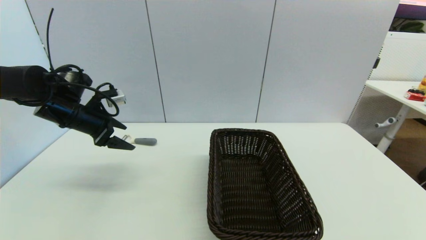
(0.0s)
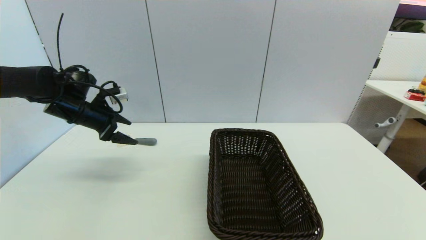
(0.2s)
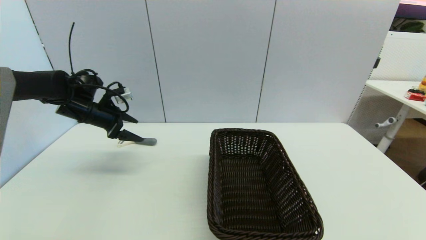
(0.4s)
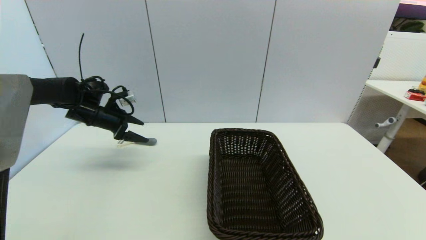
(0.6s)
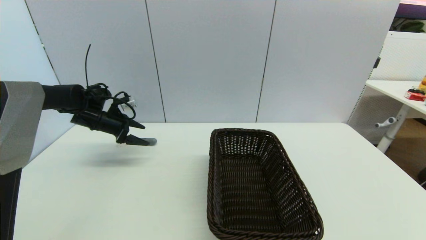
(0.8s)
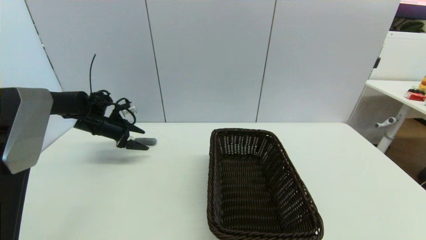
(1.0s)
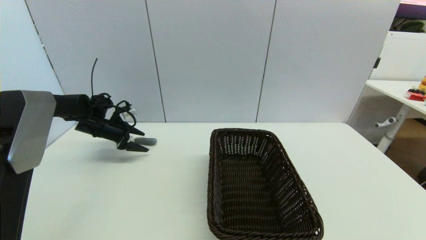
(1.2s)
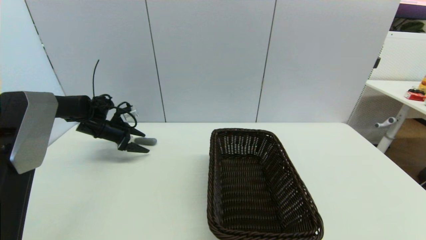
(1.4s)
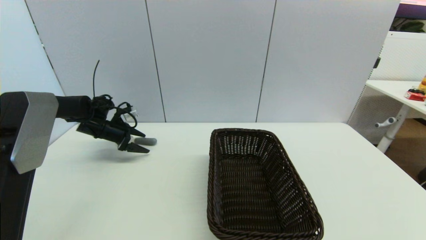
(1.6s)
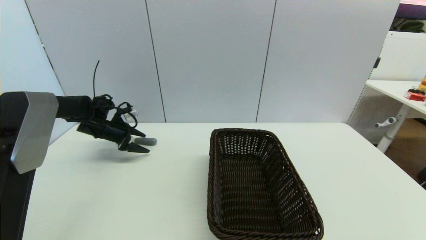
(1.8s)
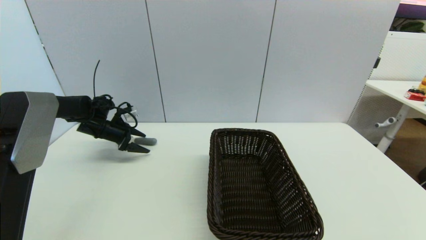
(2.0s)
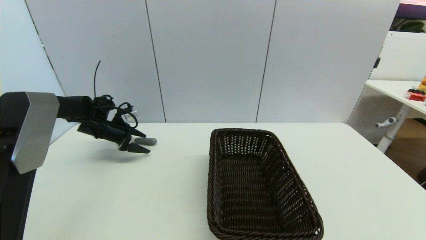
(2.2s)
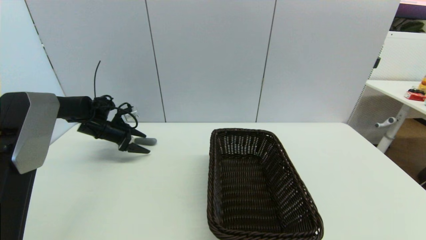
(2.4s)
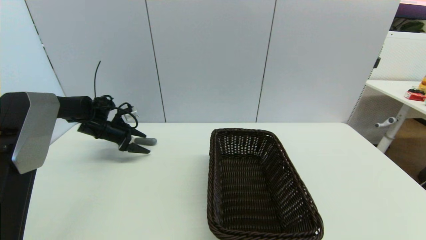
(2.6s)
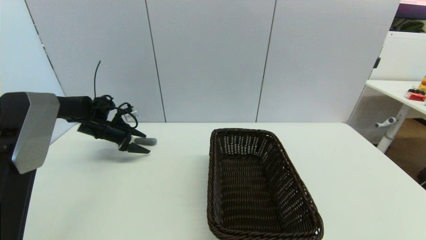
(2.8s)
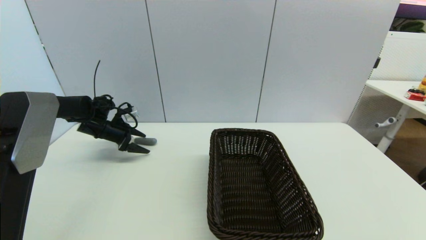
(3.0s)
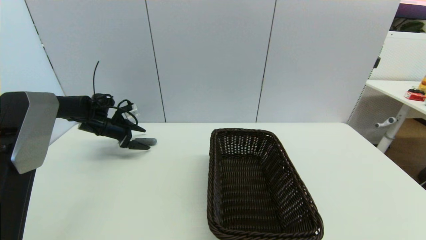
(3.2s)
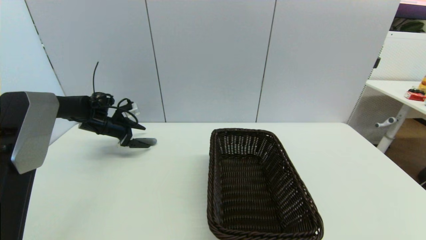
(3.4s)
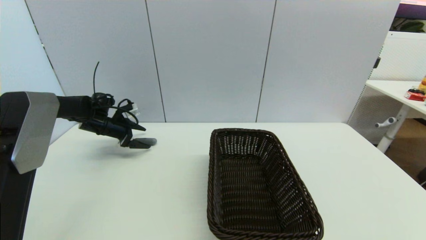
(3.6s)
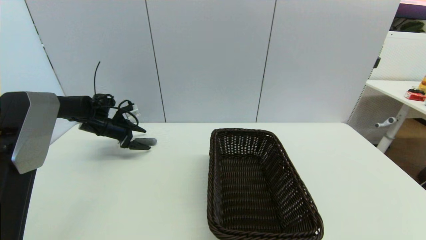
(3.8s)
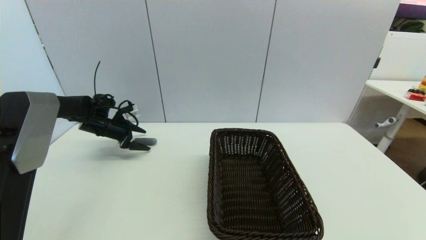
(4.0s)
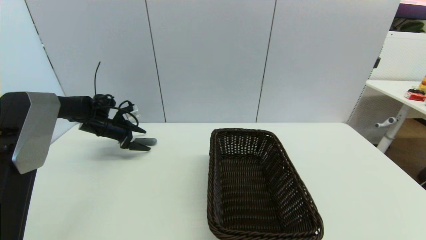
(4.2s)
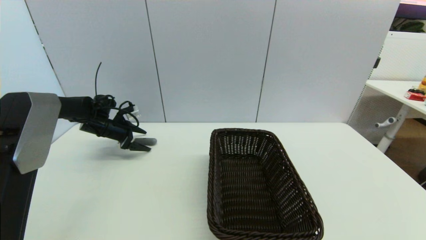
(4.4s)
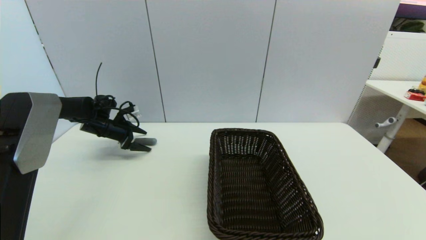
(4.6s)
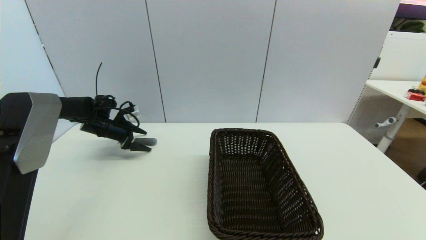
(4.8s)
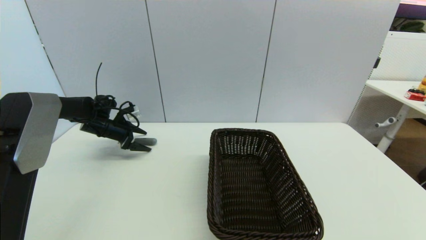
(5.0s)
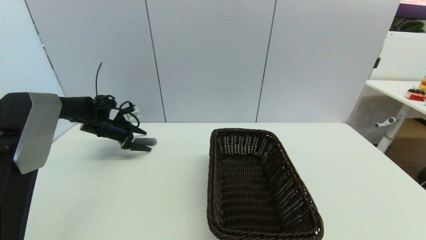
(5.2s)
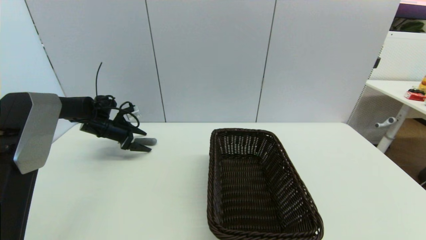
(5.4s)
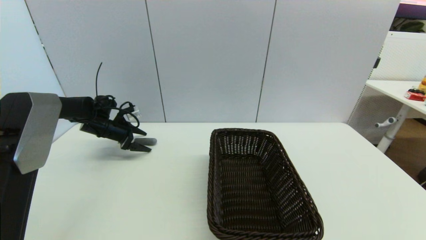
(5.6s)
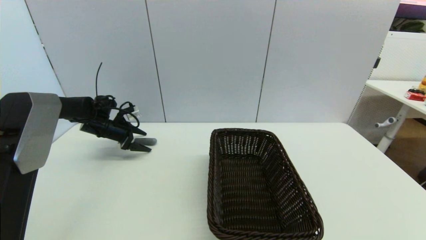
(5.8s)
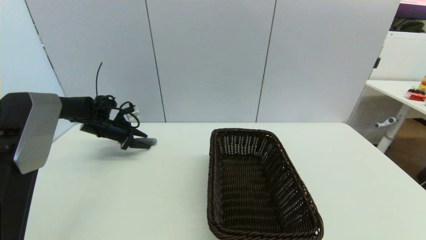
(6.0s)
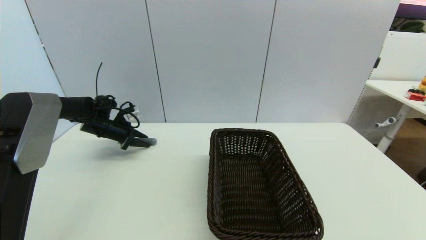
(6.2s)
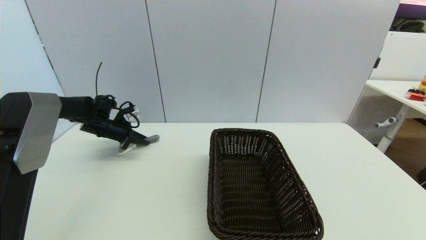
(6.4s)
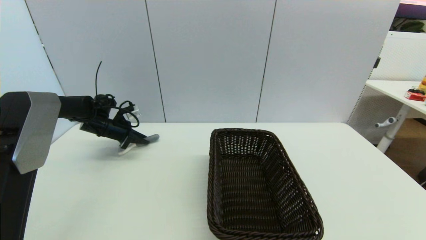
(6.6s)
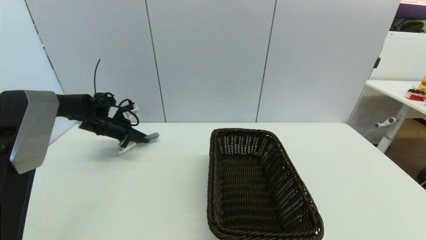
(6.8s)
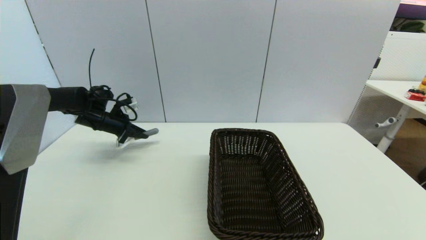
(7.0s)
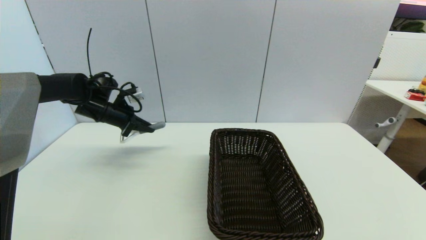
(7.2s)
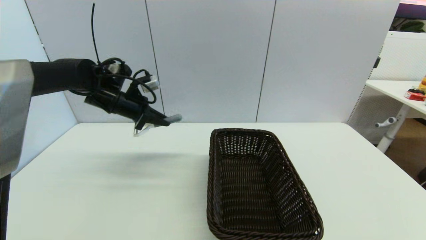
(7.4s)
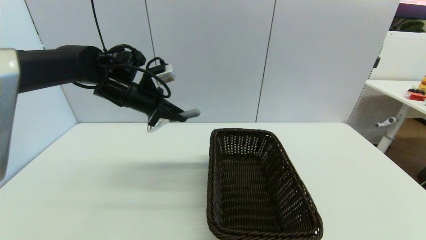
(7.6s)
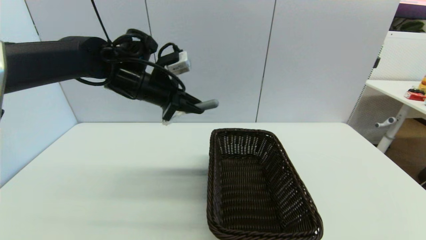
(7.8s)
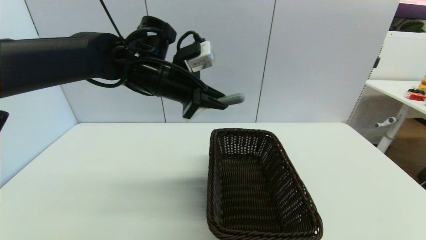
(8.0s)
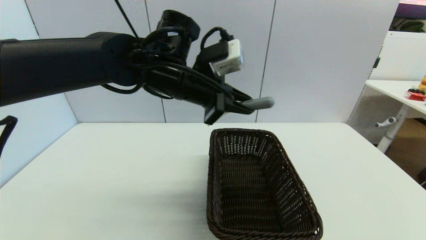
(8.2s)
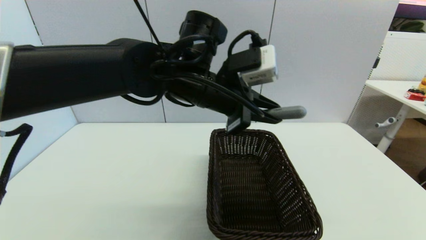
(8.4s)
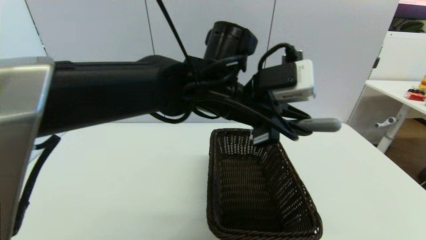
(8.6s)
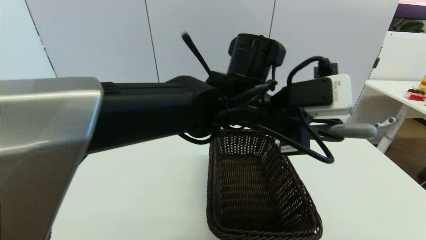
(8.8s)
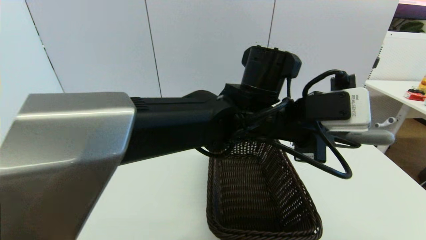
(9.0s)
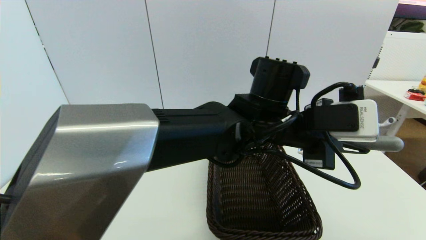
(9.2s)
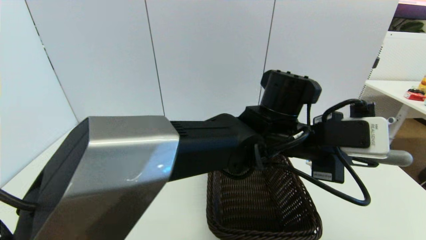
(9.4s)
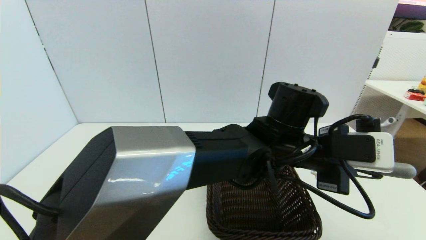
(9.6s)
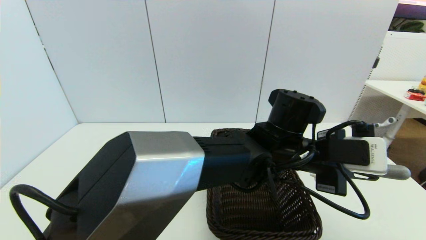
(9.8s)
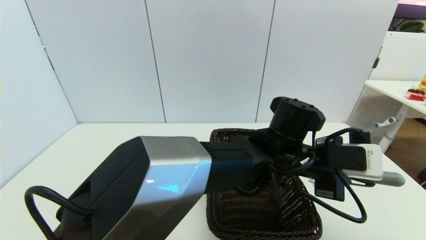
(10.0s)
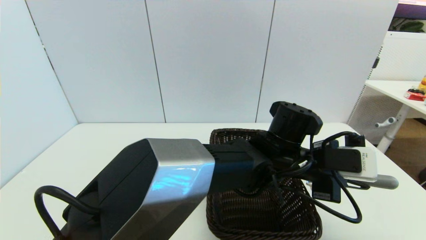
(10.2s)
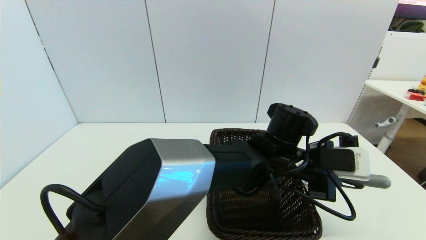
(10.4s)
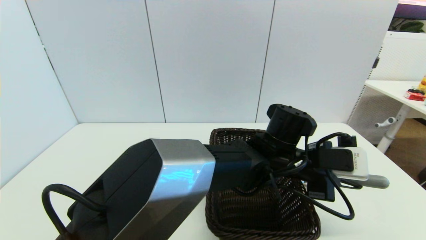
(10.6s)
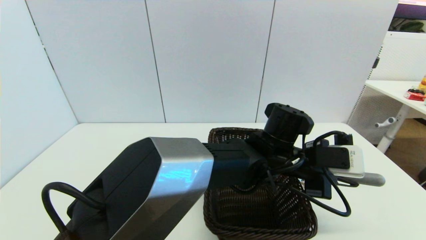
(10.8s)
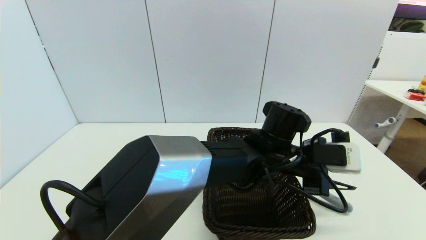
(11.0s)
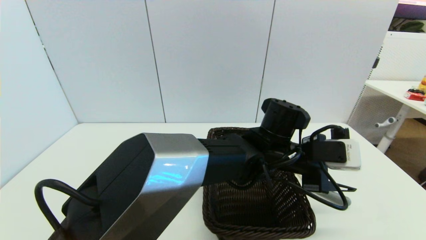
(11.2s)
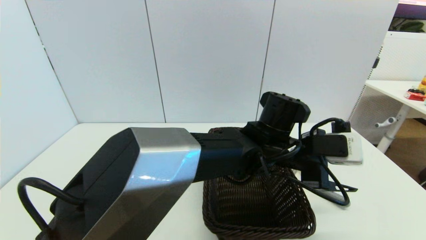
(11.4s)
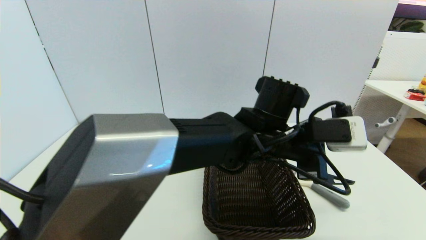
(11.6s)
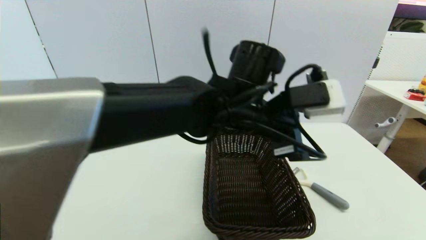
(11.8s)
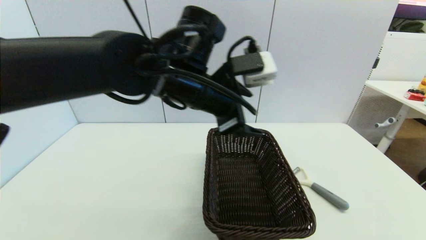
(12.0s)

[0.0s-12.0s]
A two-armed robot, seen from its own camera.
Step, 0.0s to 7.0s: Grasp the peeler with left gripper.
Step, 7.2s to 11.6s: Place the peeler on the table with left gripper.
0.0s to 1.6s: The left gripper goes approximately 15 cm downward and forward.
1.6s to 3.0s: Both grippers stay about where they are.
3.0s to 4.4s: The grippers make only small movements.
4.4s to 6.0s: The left gripper closes up.
6.0s to 7.6s: The left gripper travels upward, to the right and backward by approximately 25 cm, and closes.
7.6s to 9.0s: The left gripper goes some 30 cm to the right and backward.
9.0s to 10.4s: The left gripper goes some 10 cm downward and to the right.
10.4s to 12.0s: The left gripper goes approximately 25 cm to the left and upward, and opens its fingers.

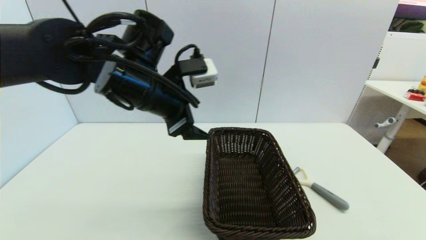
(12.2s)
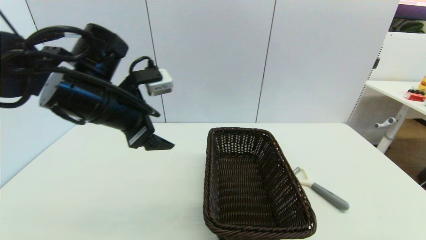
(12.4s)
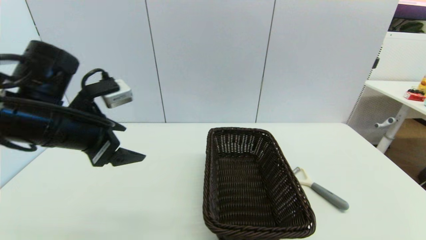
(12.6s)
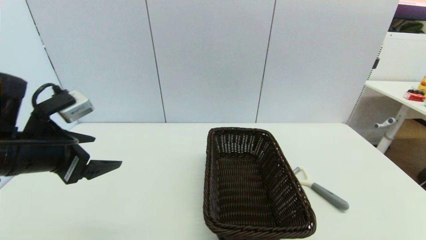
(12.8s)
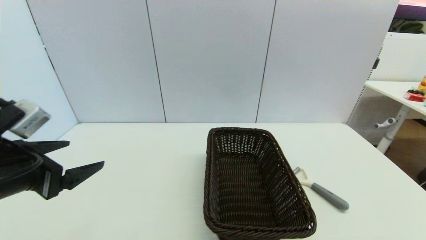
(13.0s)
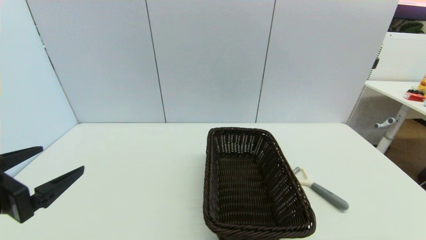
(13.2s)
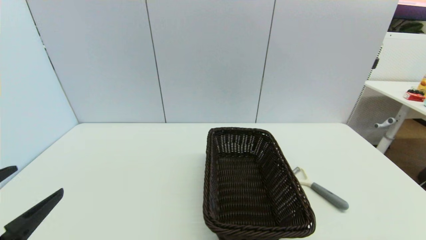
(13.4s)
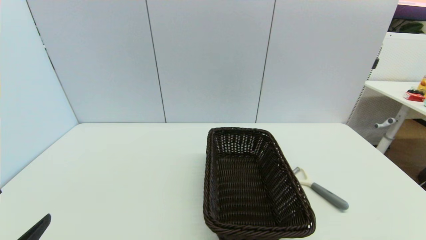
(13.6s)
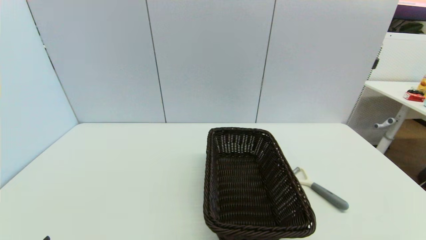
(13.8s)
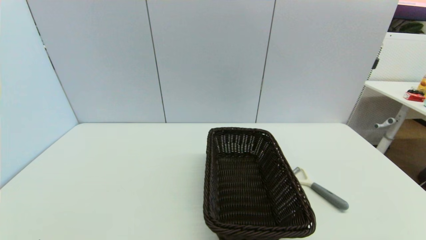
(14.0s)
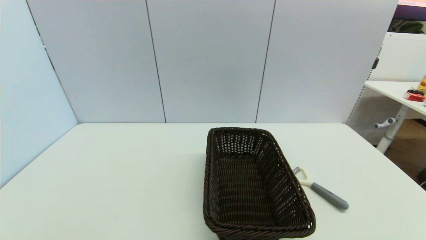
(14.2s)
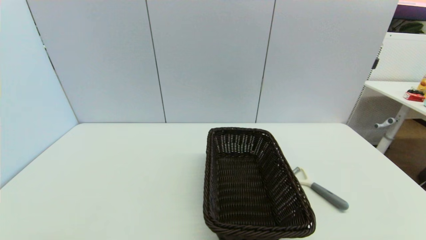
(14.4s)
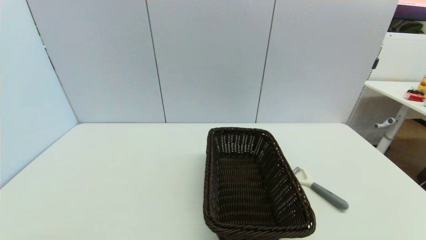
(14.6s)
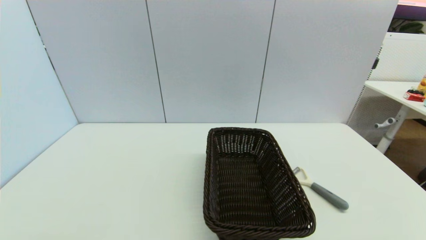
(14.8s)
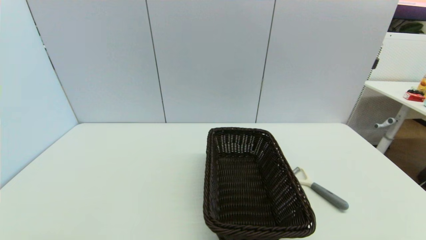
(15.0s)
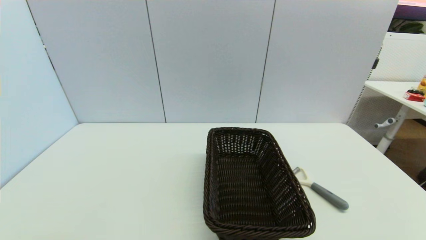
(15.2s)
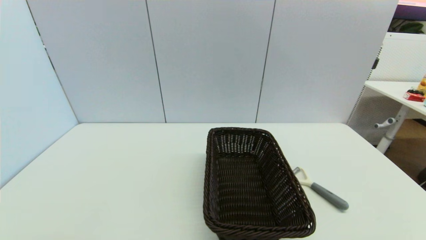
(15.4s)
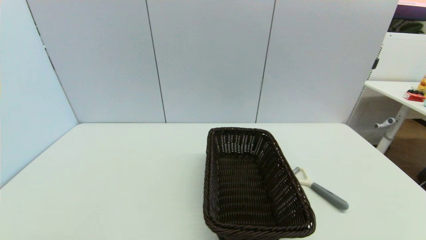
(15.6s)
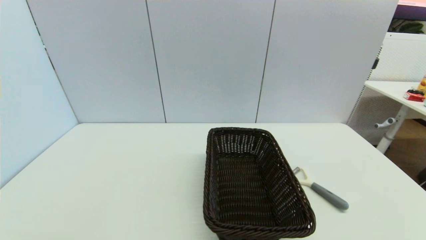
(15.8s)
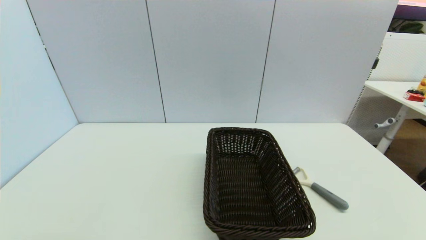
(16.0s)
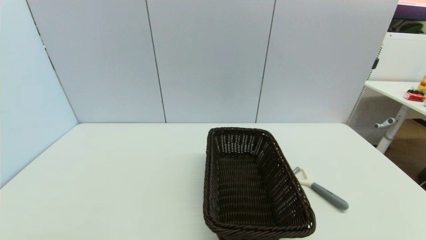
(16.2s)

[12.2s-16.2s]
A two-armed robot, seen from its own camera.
12.2s to 13.6s: The left gripper goes approximately 35 cm backward, to the left and downward.
14.8s to 16.2s: Neither gripper changes place.
